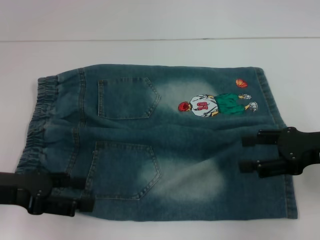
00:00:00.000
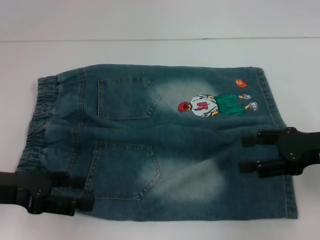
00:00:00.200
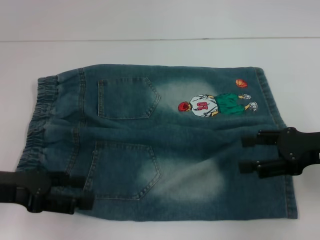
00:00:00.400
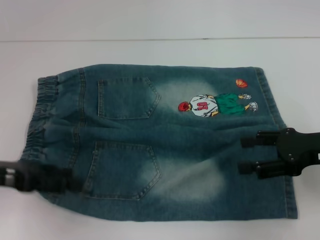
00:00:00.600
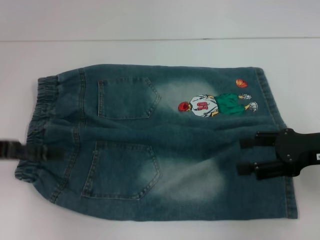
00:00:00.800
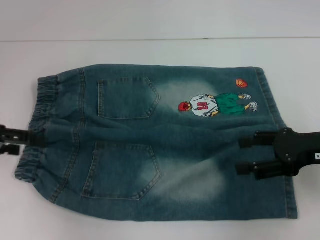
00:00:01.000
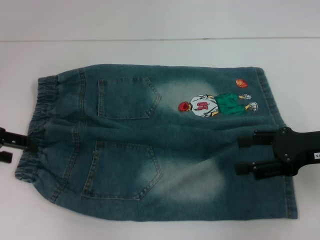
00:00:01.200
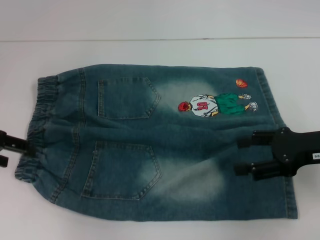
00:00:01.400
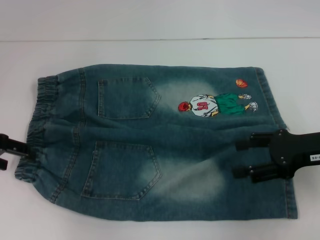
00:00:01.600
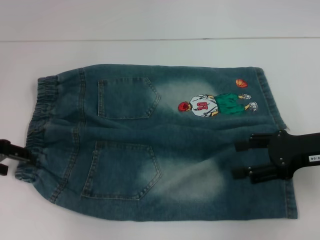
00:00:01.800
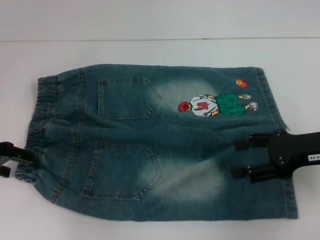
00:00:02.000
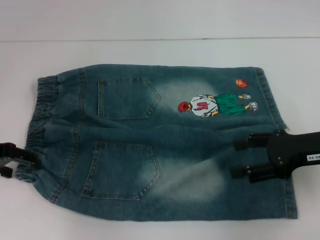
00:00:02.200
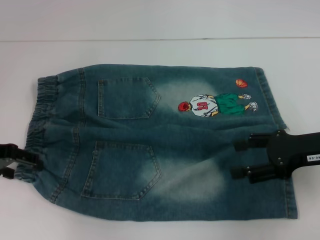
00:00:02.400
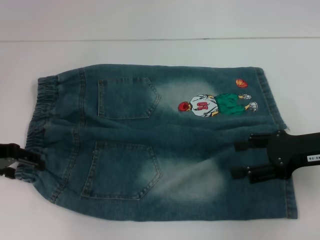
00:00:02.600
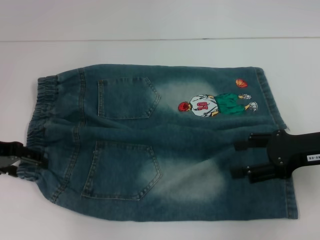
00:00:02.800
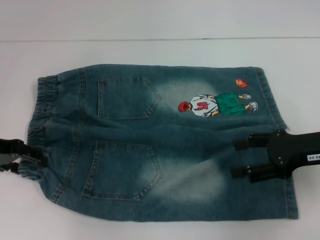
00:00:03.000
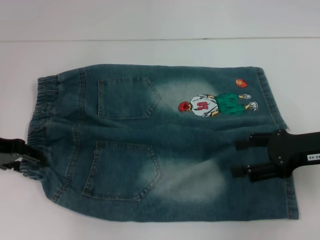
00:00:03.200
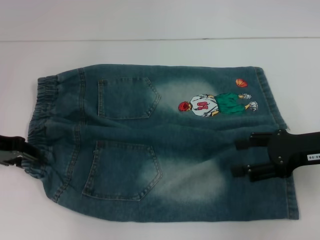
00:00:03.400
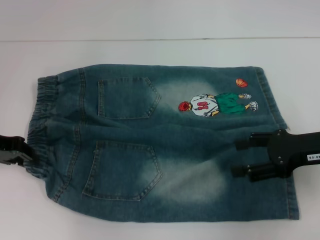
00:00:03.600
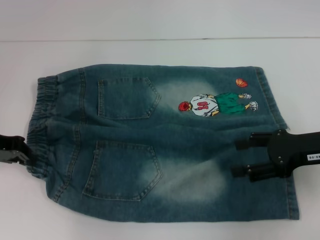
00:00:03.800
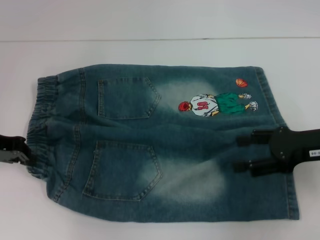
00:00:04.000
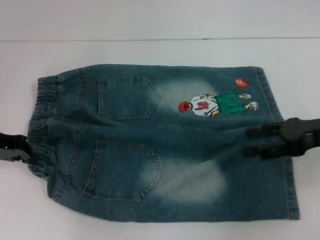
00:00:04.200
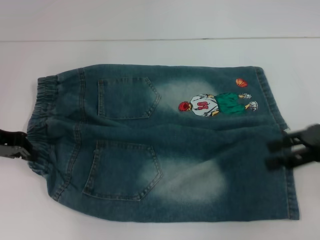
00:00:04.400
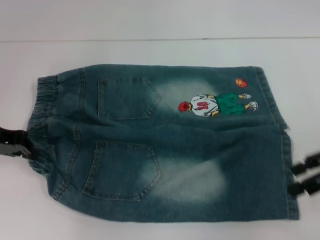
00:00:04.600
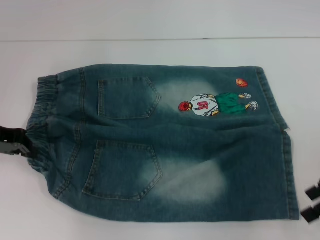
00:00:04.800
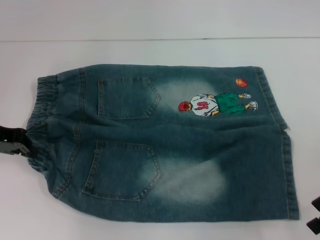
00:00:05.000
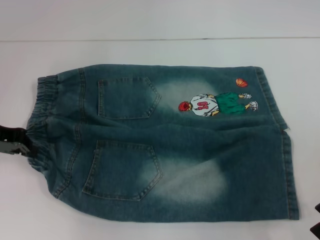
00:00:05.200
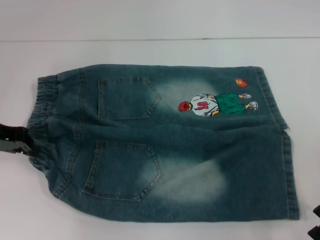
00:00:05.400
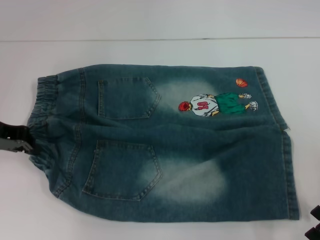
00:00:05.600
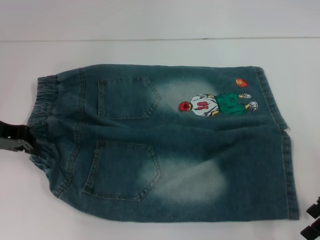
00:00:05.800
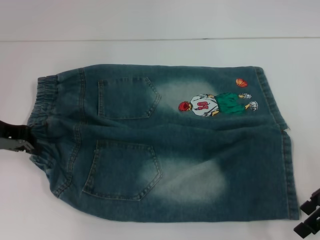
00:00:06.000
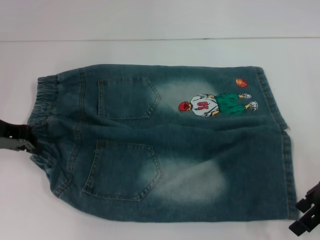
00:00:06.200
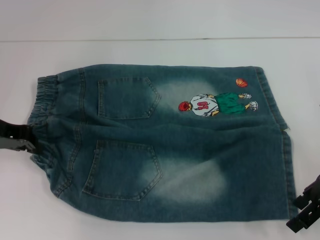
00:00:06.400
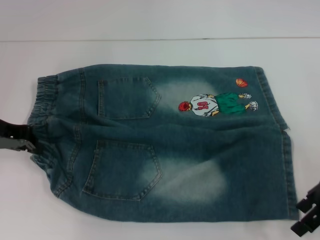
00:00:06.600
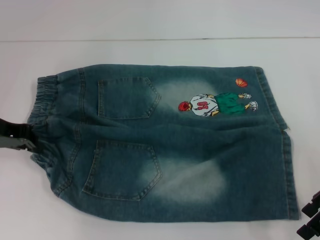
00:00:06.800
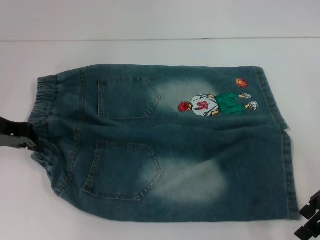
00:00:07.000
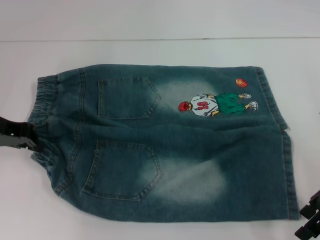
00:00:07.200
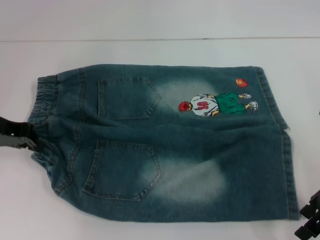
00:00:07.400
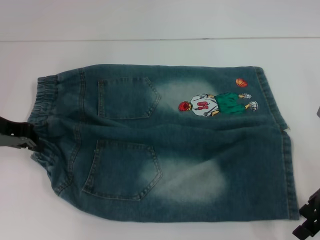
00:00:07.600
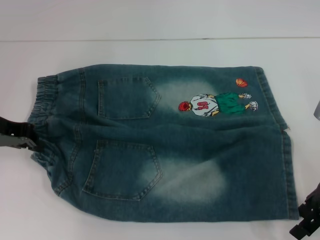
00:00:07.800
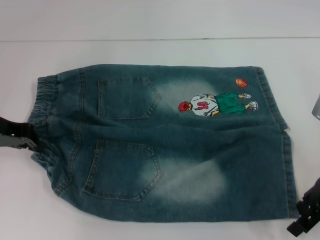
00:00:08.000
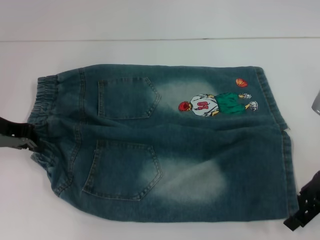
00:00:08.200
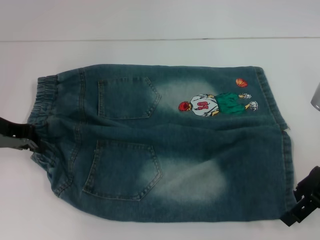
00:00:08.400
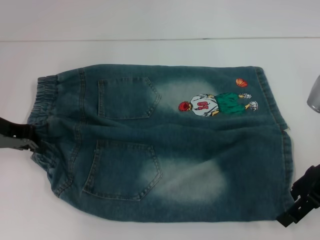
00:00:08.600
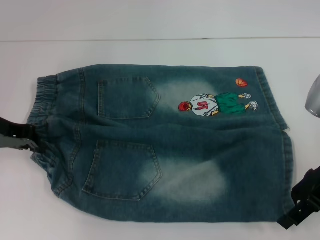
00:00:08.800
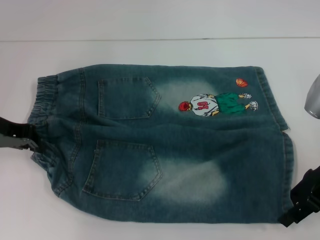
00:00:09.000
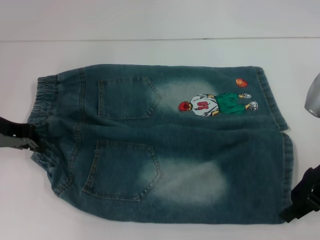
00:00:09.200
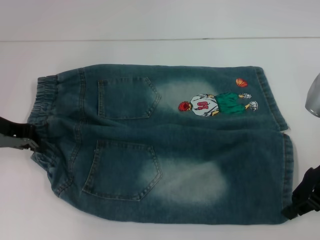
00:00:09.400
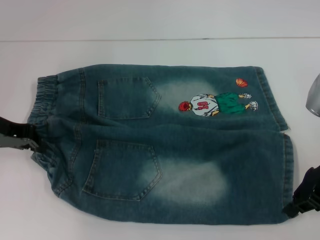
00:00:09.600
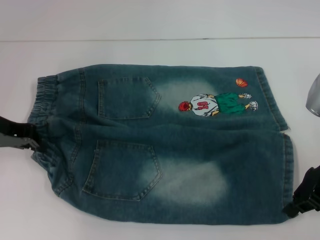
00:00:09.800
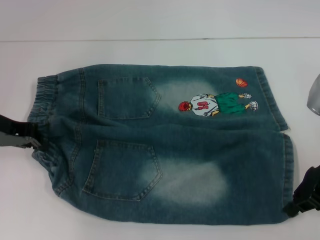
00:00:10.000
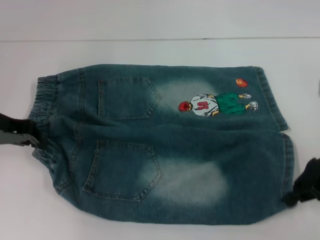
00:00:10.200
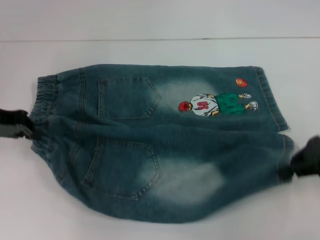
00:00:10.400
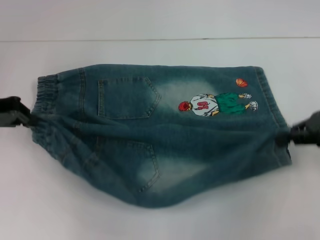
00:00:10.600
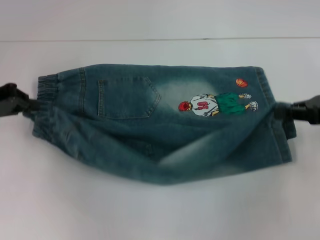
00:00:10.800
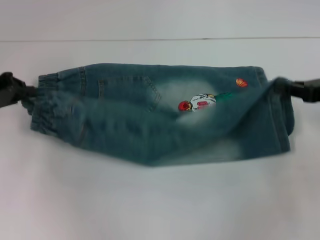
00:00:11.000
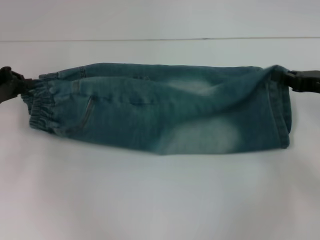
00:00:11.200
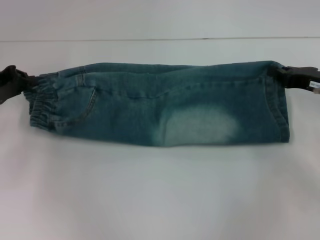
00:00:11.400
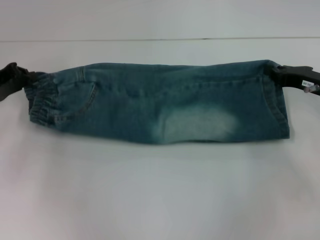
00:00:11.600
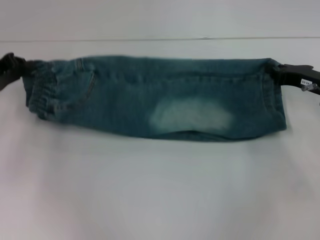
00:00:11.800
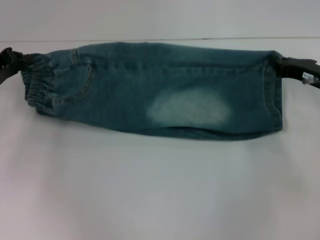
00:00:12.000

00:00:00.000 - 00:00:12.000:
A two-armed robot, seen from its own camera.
Step, 00:00:00.000 - 00:00:04.000: Hold the lower left waistband with your left hand.
Step, 00:00:04.200 - 00:00:09.600: Grab the lower right pant leg with your right hand.
00:00:00.000 - 00:00:01.600: The left gripper goes approximately 10 cm forward.
00:00:01.600 - 00:00:03.000: The grippers move only a little.
00:00:03.000 - 00:00:04.400: The left gripper closes its fingers. Meanwhile the right gripper moves roughly 5 cm.
00:00:06.000 - 00:00:07.600: The two grippers keep their place.
00:00:07.600 - 00:00:09.000: The grippers stay close to where they were, moving slightly.
00:00:09.000 - 00:00:10.400: The right gripper closes.
00:00:10.400 - 00:00:12.000: The right gripper moves downward and forward, some 10 cm.

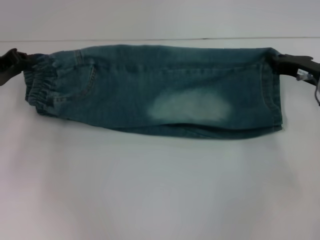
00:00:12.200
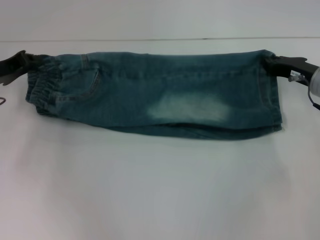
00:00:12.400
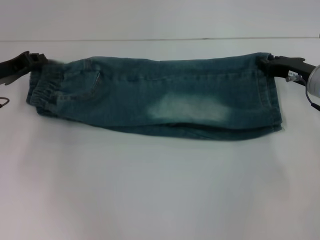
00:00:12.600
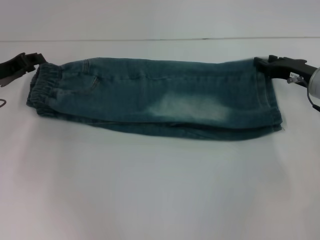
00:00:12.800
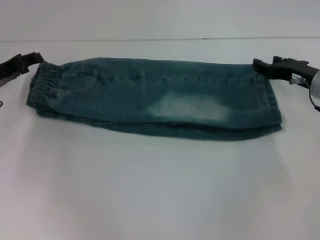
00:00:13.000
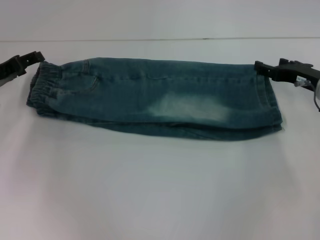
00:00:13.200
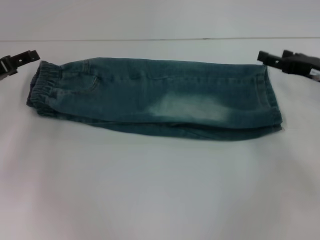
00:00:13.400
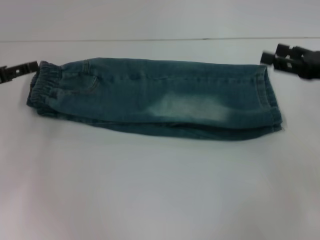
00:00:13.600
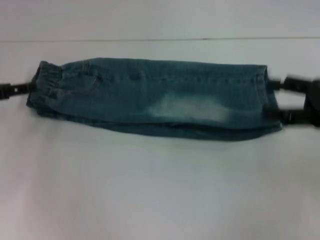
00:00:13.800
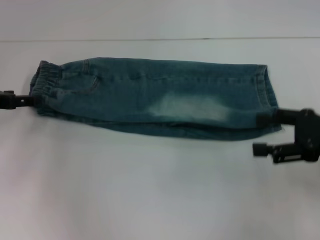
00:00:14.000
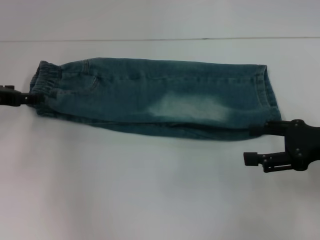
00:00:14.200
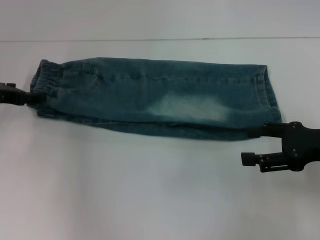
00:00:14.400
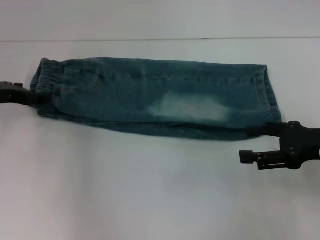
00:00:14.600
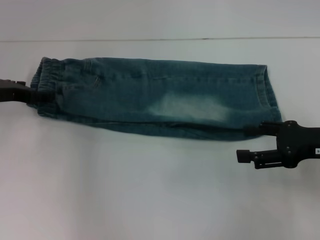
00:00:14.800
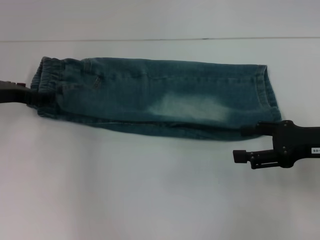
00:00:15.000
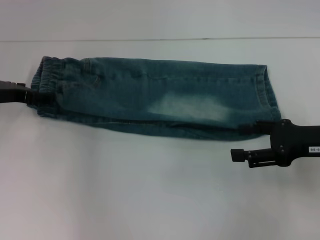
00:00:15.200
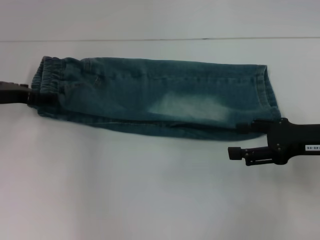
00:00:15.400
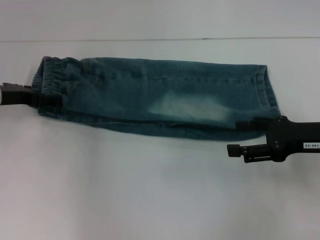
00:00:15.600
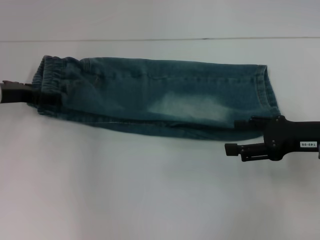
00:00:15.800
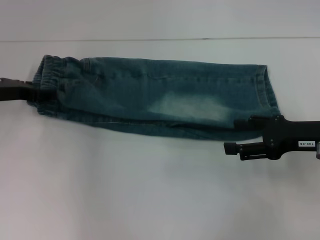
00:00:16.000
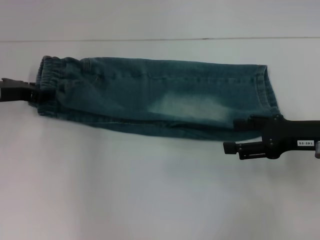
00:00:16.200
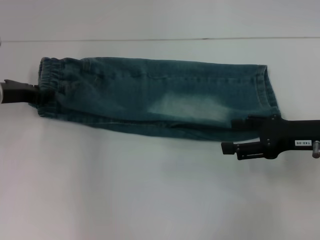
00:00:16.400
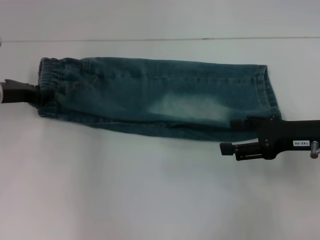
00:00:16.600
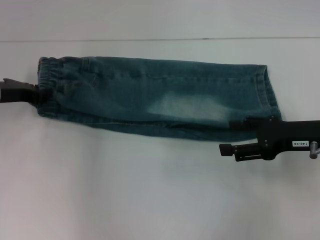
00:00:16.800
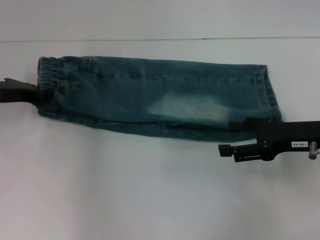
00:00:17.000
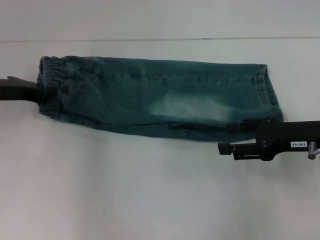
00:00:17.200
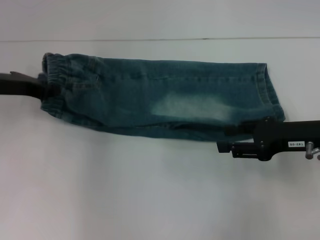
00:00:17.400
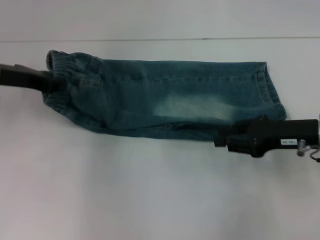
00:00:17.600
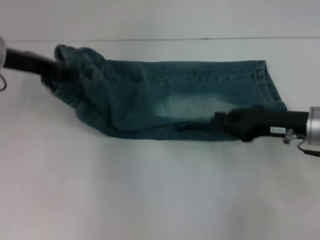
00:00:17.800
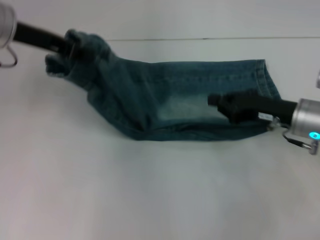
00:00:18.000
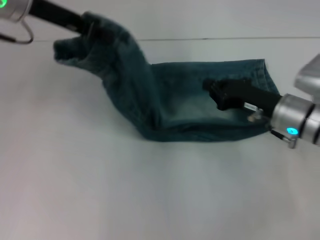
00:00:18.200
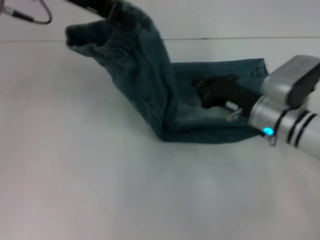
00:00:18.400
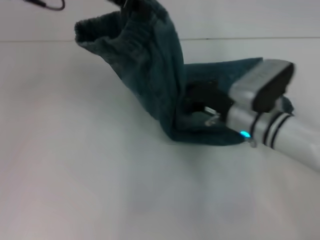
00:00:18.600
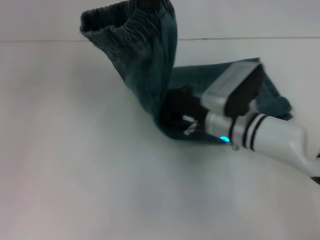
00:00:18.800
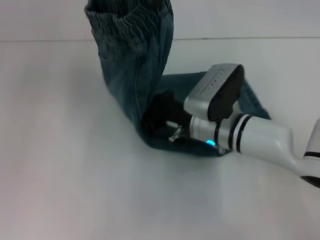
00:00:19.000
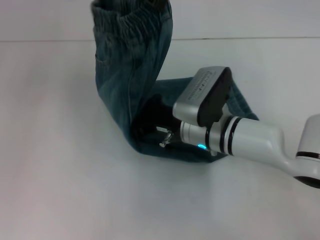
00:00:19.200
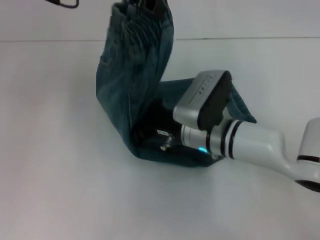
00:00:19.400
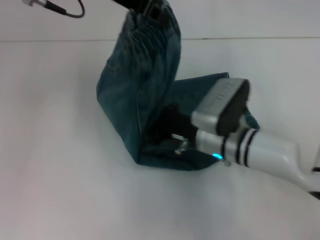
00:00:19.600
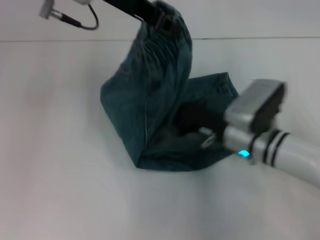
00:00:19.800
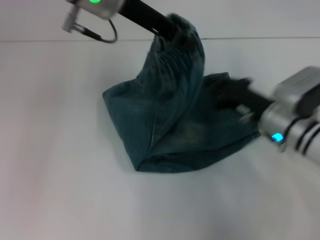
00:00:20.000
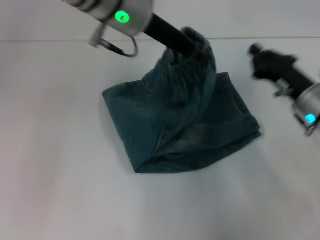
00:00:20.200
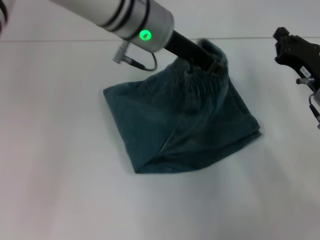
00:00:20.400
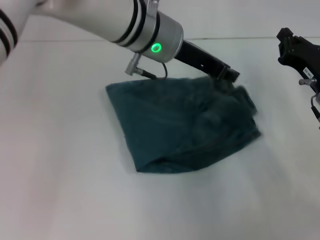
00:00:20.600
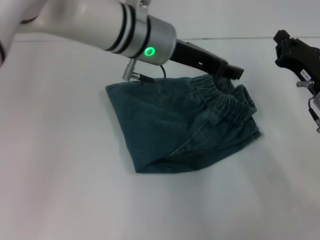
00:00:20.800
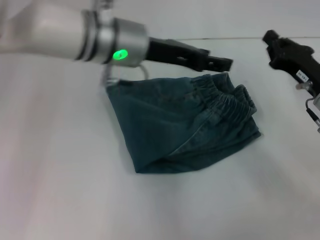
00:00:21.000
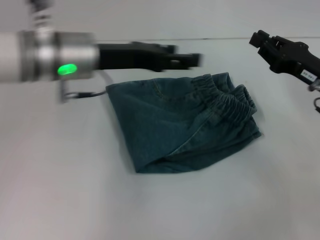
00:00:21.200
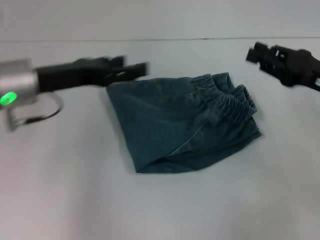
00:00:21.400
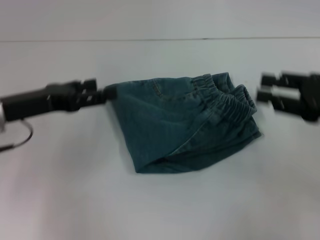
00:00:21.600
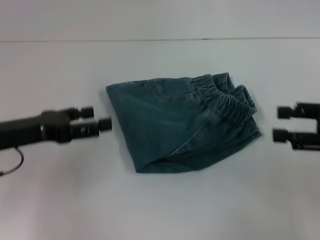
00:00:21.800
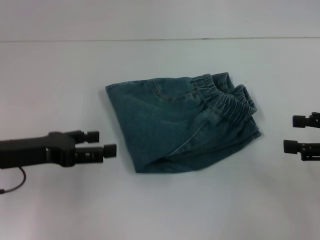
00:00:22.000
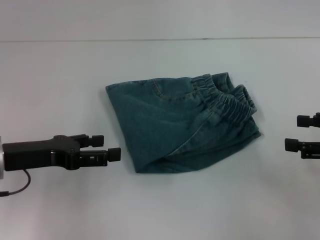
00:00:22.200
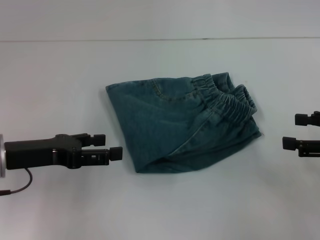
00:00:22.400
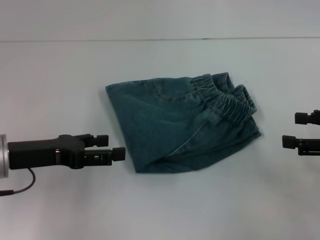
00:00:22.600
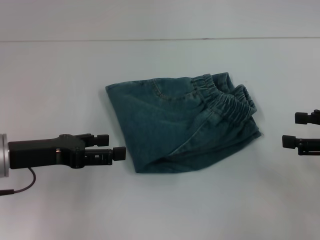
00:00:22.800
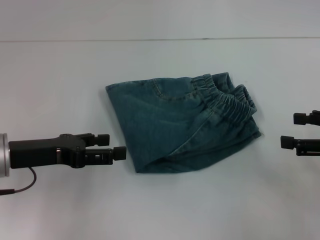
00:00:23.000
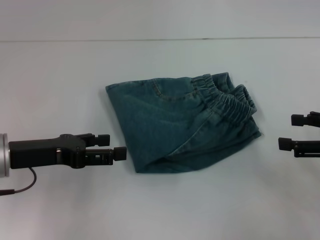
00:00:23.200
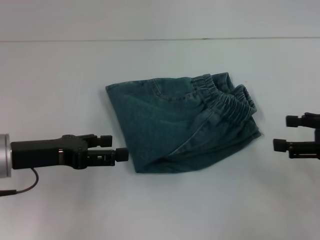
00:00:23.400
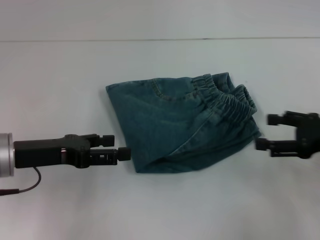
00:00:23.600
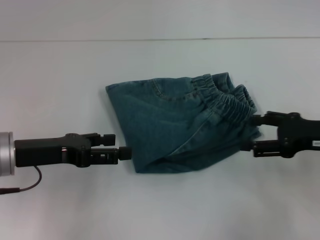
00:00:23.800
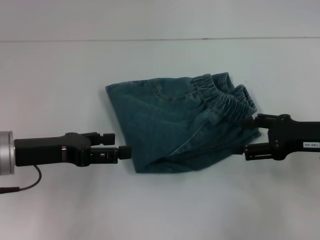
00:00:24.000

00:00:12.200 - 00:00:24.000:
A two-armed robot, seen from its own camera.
Step, 00:00:13.000 - 00:00:17.200: Hold the waistband with your left hand.
Step, 00:00:17.400 - 00:00:19.200: Press the middle of the pants with your right hand.
Step, 00:00:19.400 - 00:00:20.800: Fold to the right with your left hand.
00:00:12.200 - 00:00:13.600: The left gripper opens, while the right gripper is displaced upward and backward by about 10 cm, and opens.
00:00:13.600 - 00:00:15.200: The right gripper changes place by some 5 cm, while the left gripper changes place by approximately 5 cm.
00:00:16.600 - 00:00:18.200: The left gripper goes approximately 20 cm upward and to the right. The right gripper heads to the left, covering some 5 cm, and closes up.
00:00:18.200 - 00:00:19.600: The right gripper heads to the left, covering roughly 10 cm, while the left gripper goes about 5 cm to the right.
00:00:19.600 - 00:00:21.000: The right gripper travels to the right by some 15 cm; the left gripper moves downward, approximately 10 cm, and opens.
00:00:21.000 - 00:00:22.600: The left gripper travels to the left, backward and downward by approximately 20 cm, and opens; the right gripper shifts about 10 cm to the right, backward and upward, and opens its fingers.
00:00:22.600 - 00:00:24.000: The right gripper shifts approximately 5 cm to the left.
